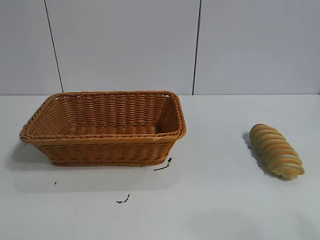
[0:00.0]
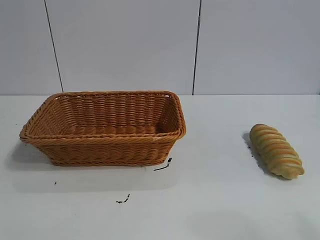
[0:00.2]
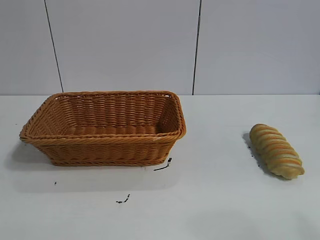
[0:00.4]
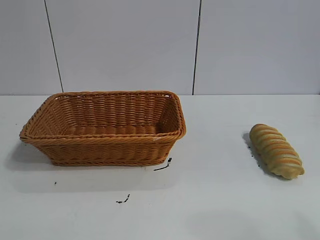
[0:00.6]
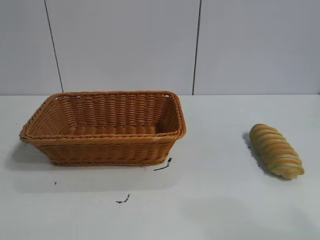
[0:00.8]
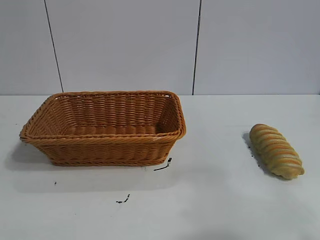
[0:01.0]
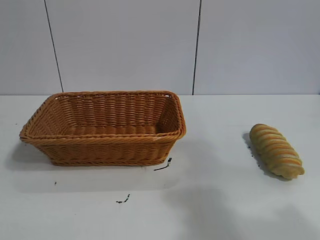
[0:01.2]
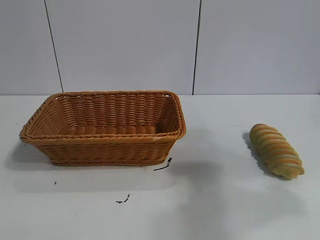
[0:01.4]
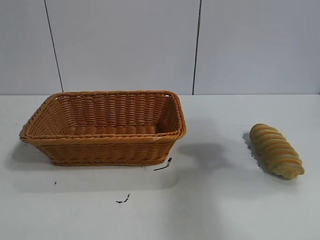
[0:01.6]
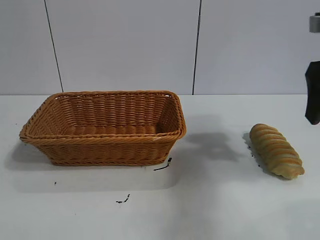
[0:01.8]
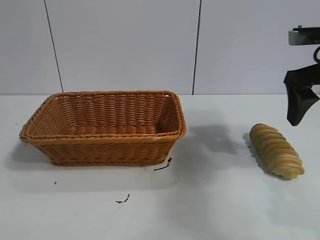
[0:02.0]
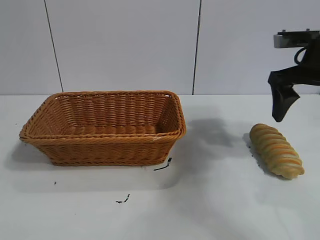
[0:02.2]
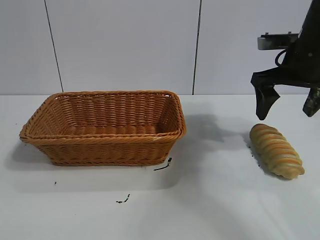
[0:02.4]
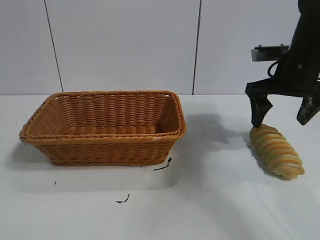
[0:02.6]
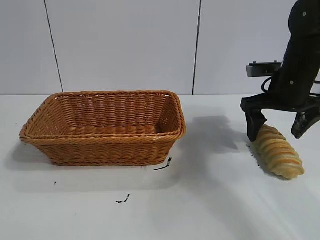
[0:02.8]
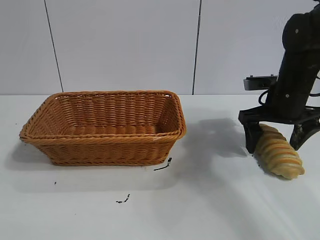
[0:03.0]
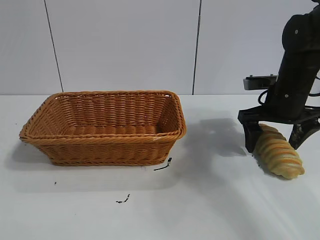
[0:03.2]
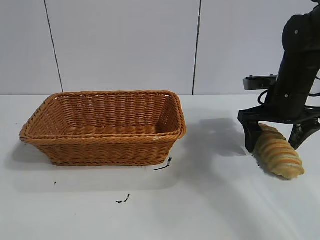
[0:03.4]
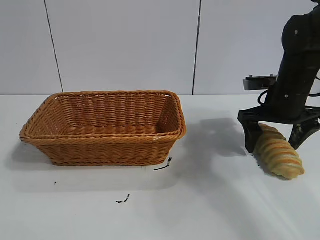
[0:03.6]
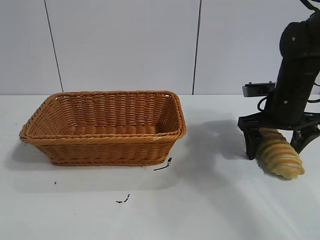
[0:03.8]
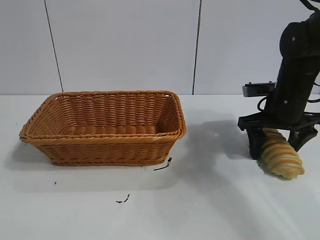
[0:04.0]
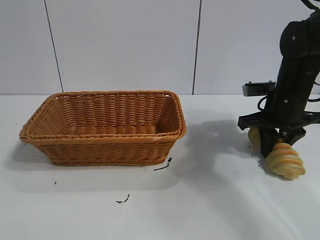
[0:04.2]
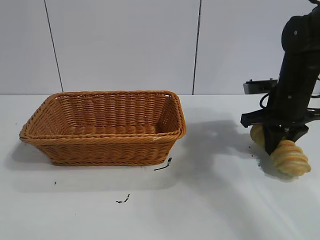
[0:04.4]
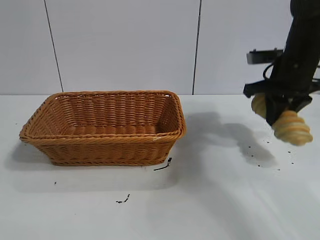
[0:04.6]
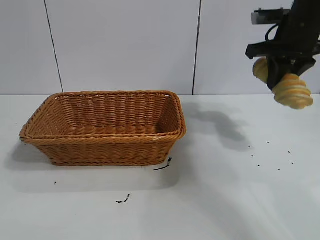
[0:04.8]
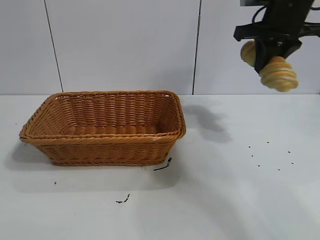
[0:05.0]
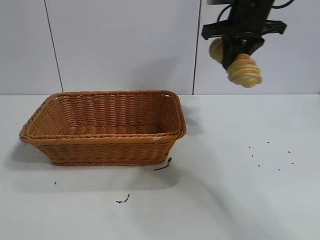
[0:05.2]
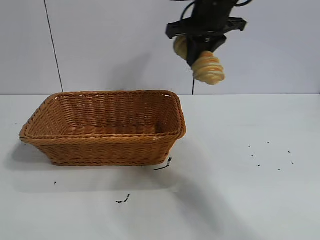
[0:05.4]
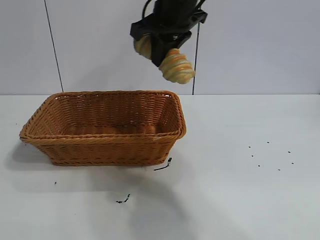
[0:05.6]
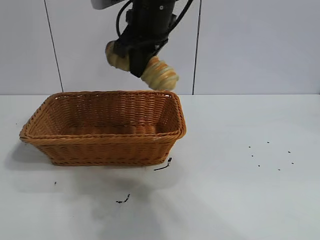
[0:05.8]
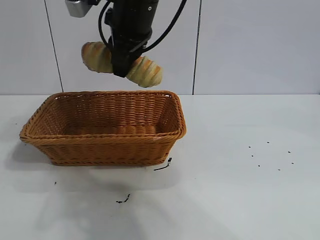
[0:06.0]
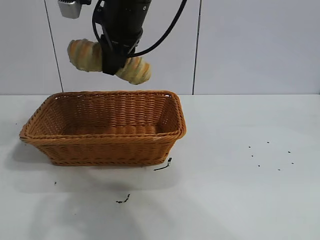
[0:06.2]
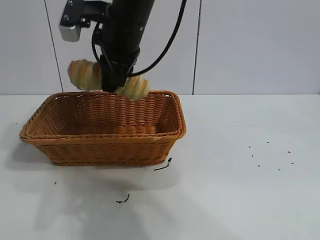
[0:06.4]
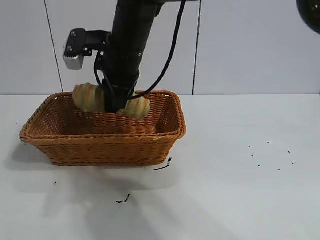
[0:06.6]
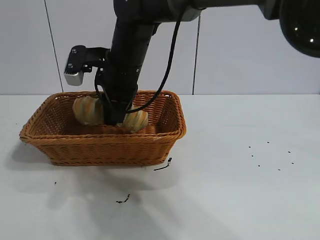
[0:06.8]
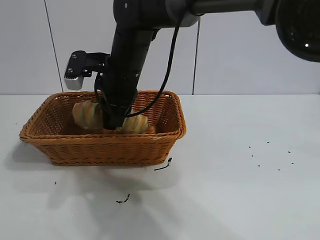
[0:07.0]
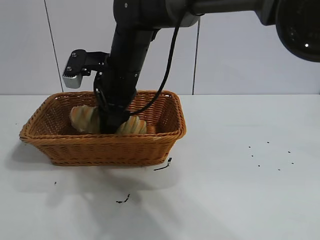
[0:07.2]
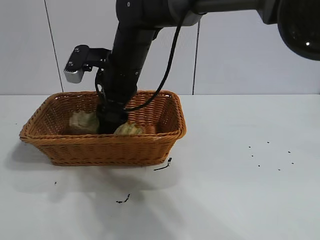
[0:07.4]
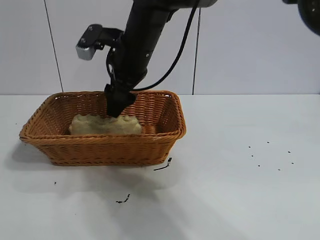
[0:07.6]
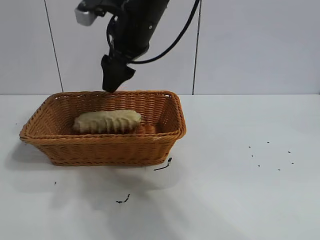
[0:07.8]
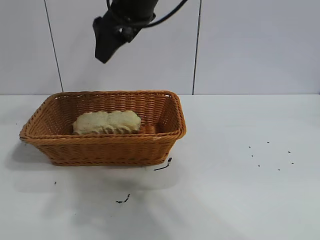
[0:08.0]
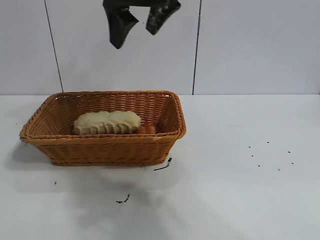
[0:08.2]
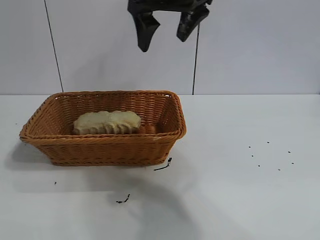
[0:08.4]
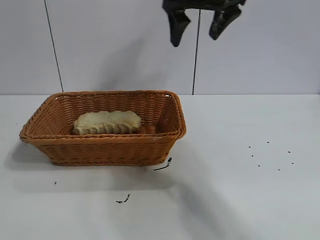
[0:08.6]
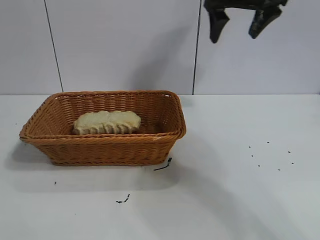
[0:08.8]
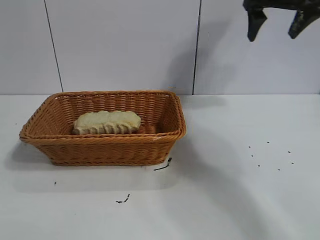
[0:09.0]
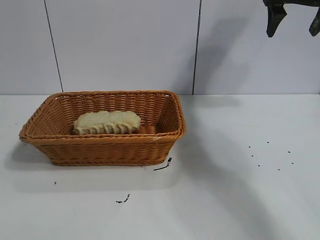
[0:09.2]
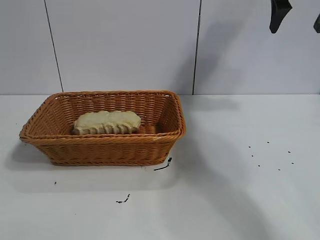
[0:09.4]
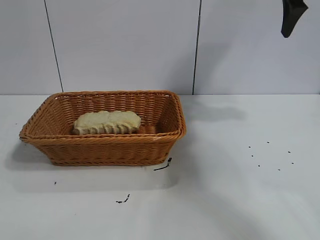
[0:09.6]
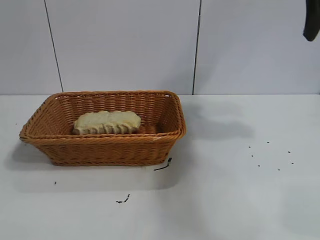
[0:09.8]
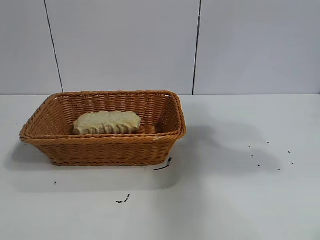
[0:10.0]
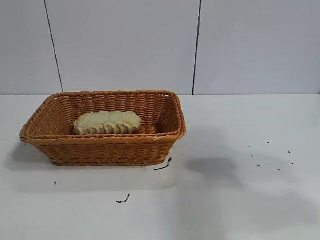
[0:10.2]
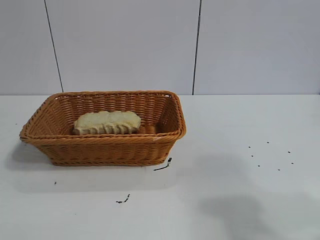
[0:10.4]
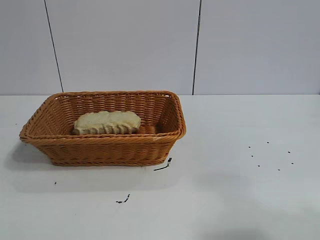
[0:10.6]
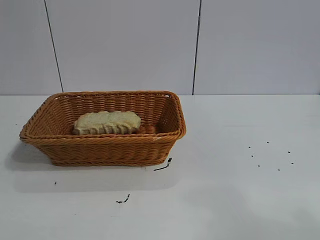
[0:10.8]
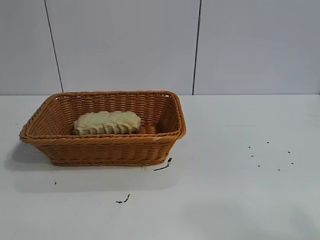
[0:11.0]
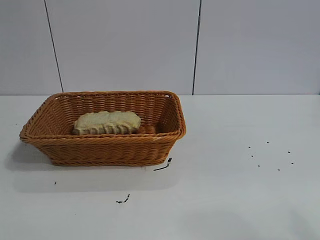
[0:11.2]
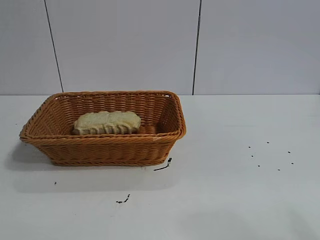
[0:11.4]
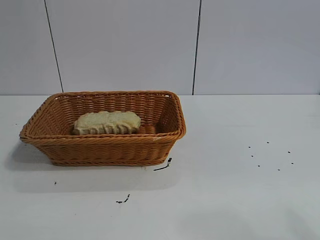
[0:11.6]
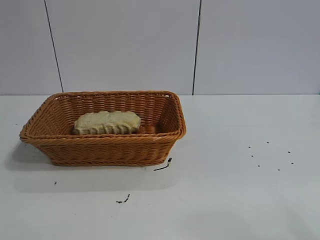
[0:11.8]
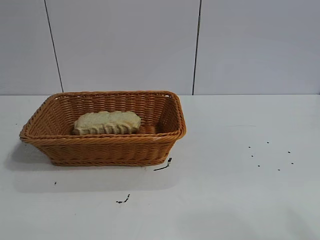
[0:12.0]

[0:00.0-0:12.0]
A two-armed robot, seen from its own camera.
Task of the whole recording: pick up the long bread and put it into the basket.
Step, 0:01.8 to 0:04.2: Grasp the long bread with right gripper.
Step, 0:04.4 to 0:07.4: Place the long bread in the basket with right gripper.

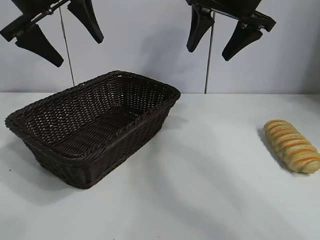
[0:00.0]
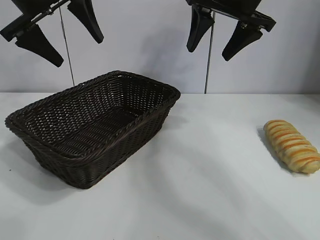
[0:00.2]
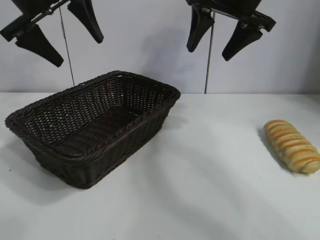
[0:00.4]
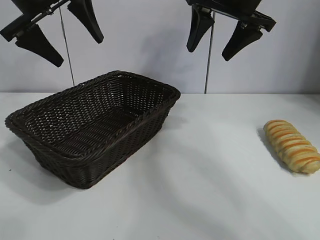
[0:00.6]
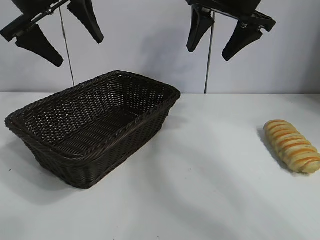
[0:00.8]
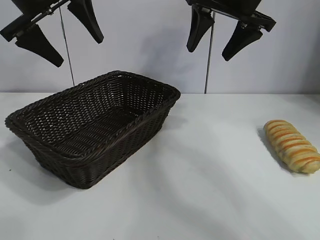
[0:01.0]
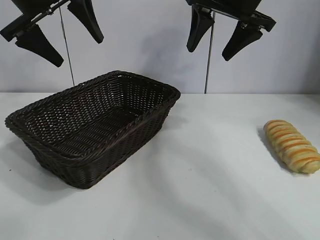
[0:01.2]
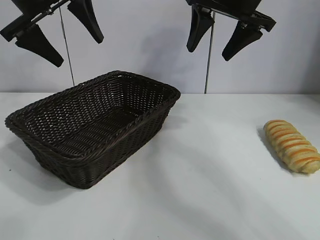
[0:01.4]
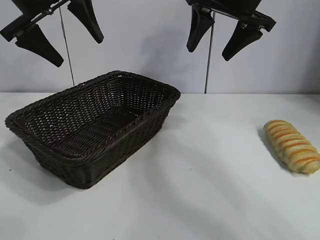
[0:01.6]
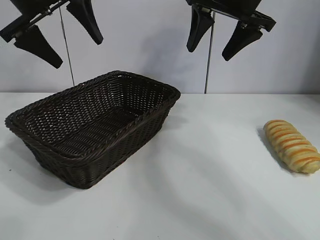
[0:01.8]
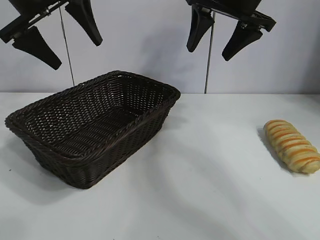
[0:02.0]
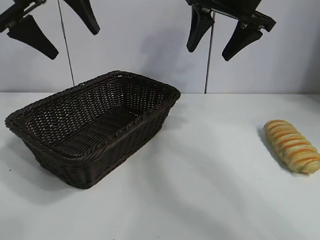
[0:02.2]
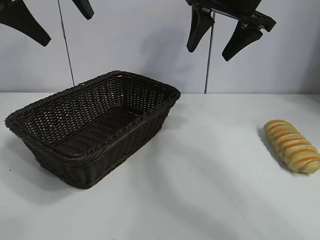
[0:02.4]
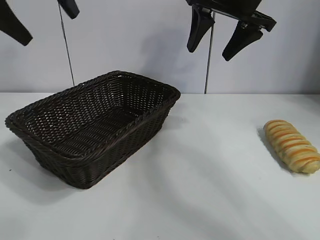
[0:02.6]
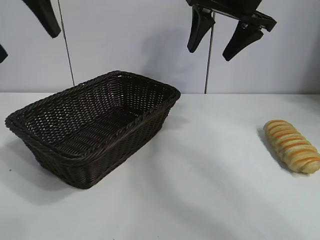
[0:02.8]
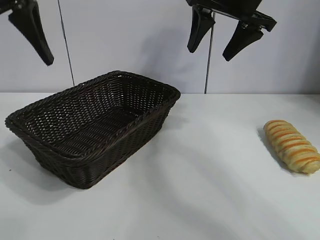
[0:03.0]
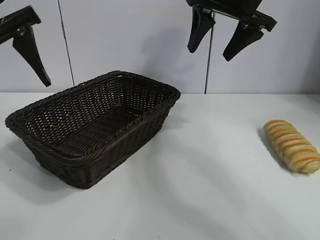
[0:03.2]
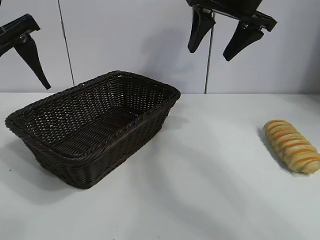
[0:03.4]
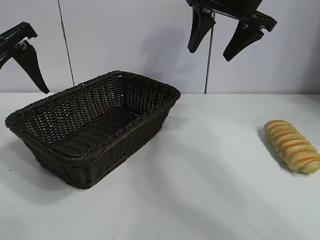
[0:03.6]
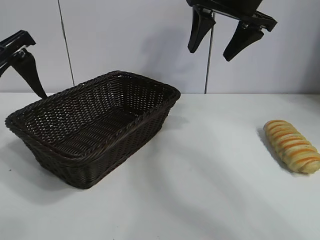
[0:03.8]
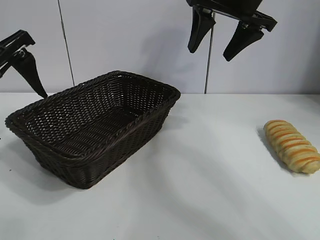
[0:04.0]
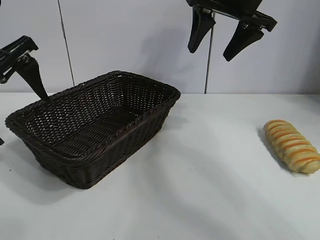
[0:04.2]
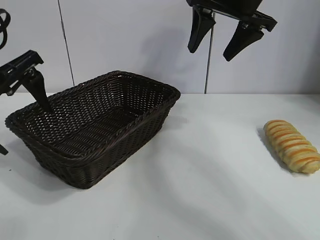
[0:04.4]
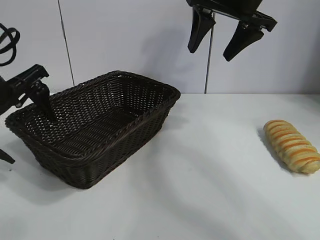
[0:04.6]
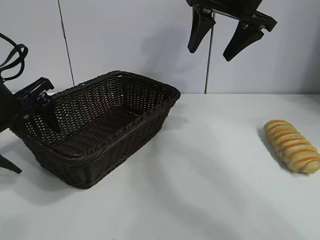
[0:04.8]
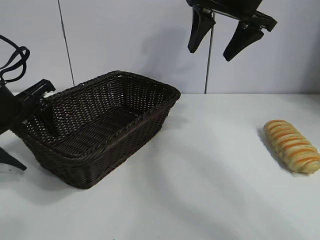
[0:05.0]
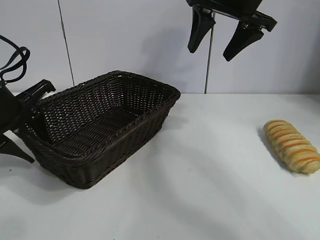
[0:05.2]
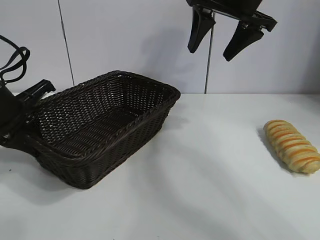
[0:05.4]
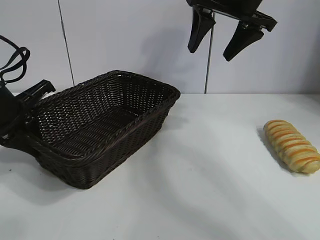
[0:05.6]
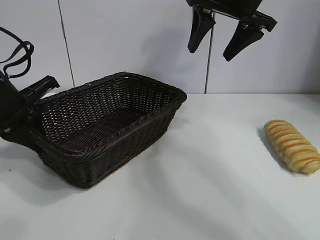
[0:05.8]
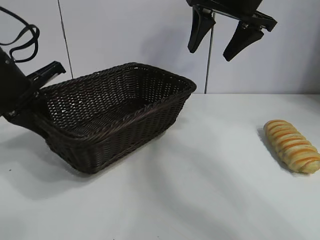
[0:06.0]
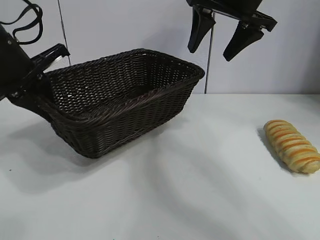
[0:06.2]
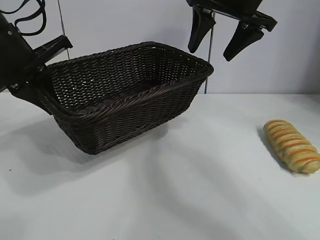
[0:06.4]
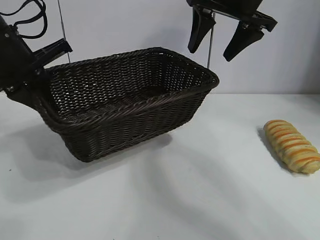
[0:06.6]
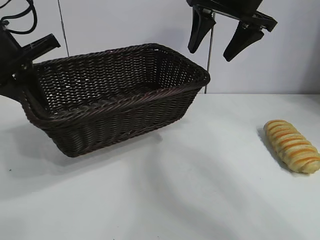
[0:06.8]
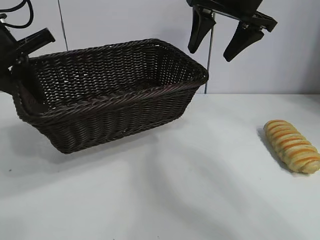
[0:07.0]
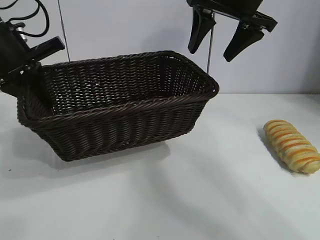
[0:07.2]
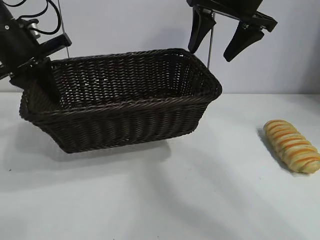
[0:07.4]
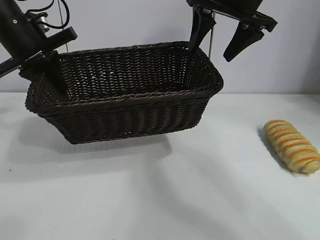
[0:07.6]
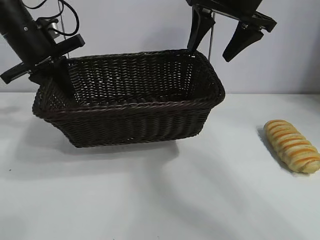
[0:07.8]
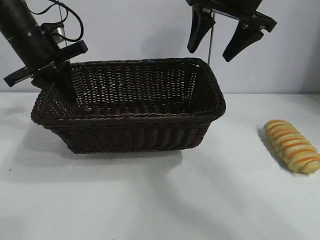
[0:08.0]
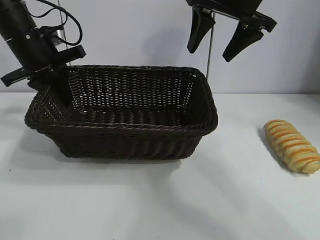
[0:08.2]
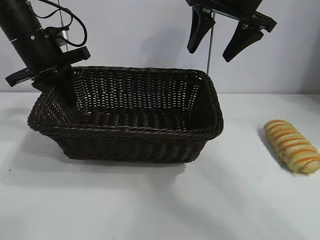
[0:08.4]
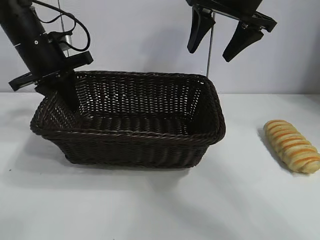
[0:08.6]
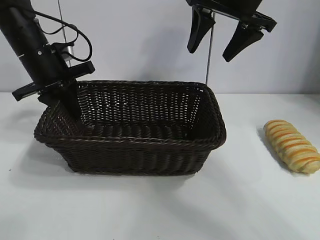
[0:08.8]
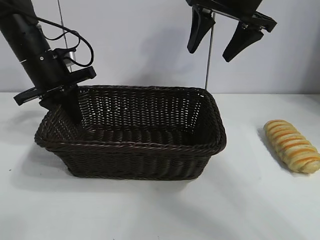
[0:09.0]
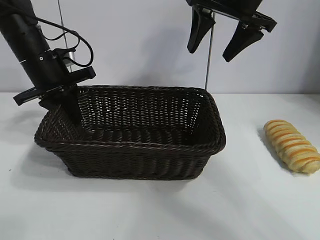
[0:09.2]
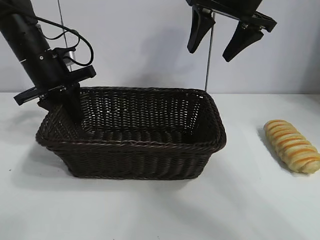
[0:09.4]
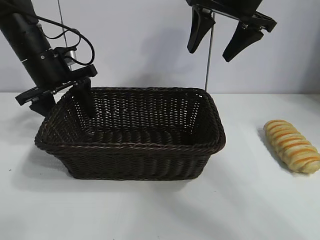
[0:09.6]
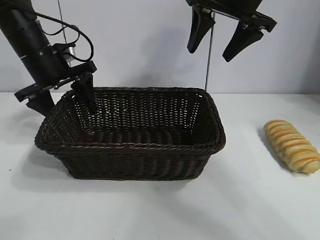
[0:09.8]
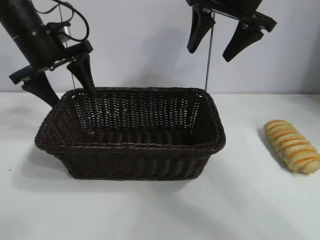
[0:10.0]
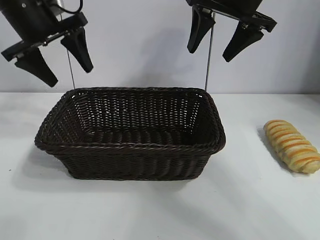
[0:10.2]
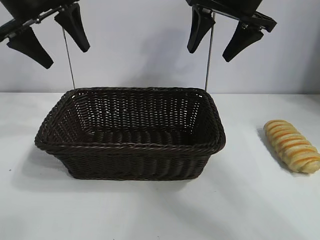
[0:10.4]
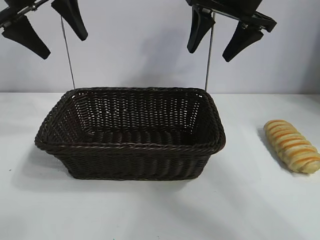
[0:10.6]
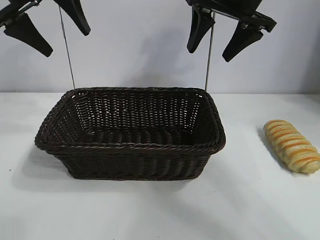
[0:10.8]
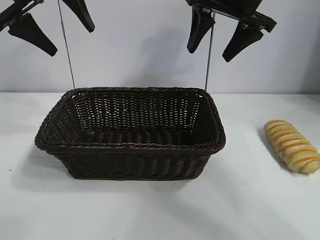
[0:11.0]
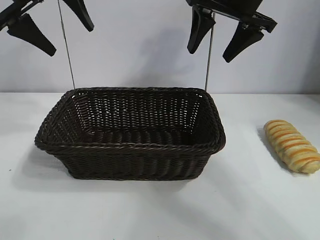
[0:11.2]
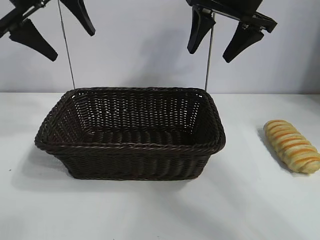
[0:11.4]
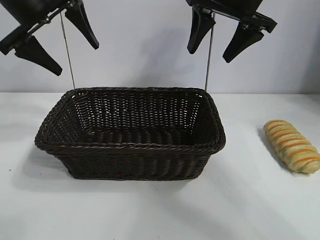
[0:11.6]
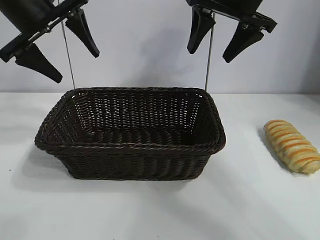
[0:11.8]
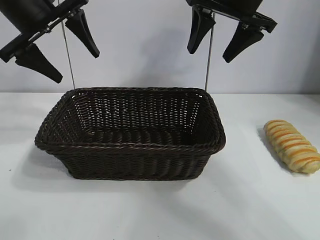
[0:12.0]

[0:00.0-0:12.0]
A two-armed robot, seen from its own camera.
Task of the whole recording: pick up the long bread and put it into the basket.
Step, 0:01.8 to 0:05.6: Grasp the basket with the left gripper.
Step, 0:05.8 to 0:09.6: Place the basket in the center of the table with the left gripper.
